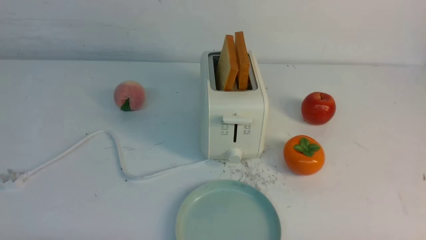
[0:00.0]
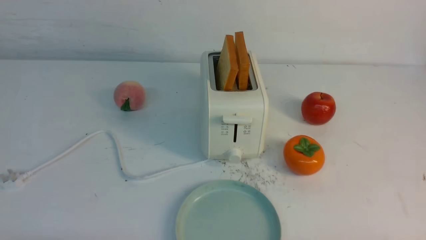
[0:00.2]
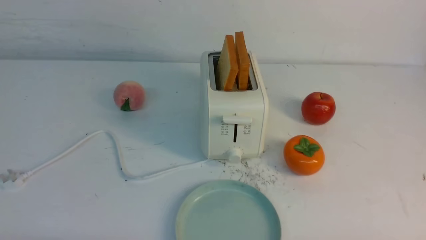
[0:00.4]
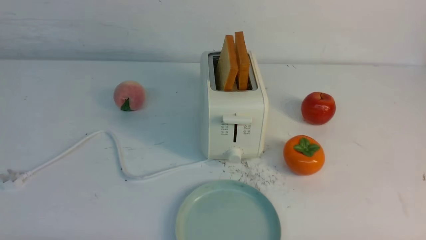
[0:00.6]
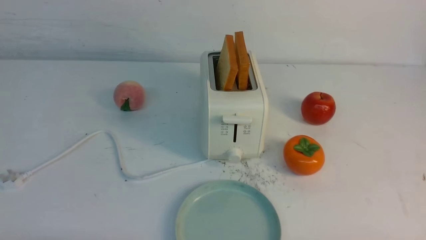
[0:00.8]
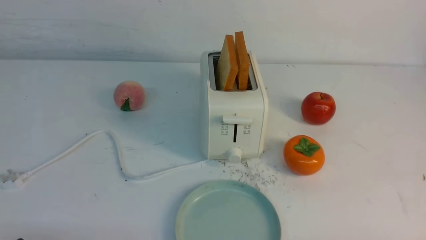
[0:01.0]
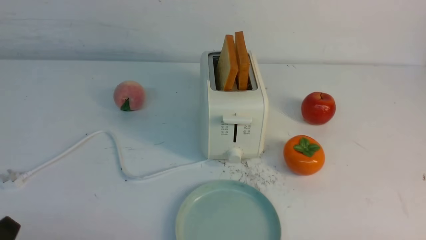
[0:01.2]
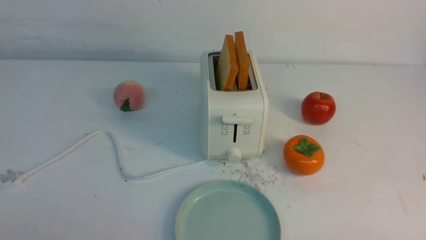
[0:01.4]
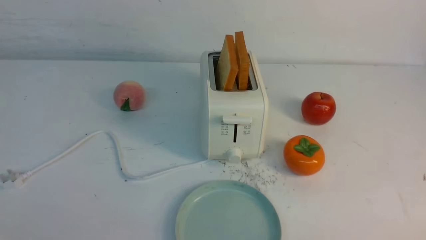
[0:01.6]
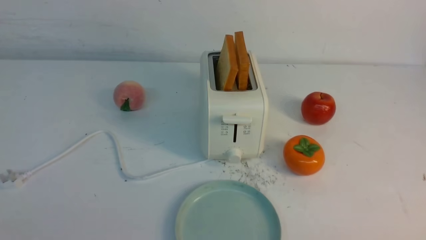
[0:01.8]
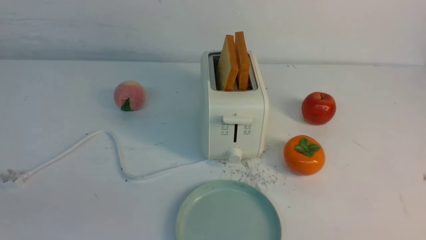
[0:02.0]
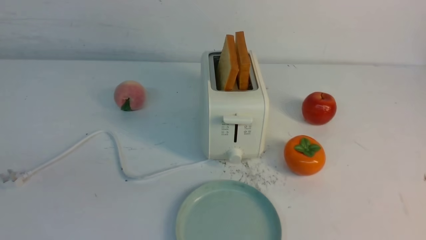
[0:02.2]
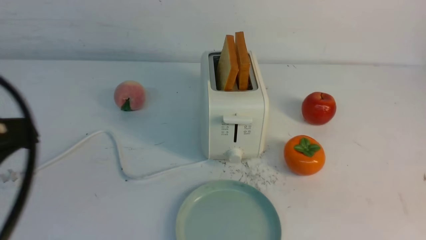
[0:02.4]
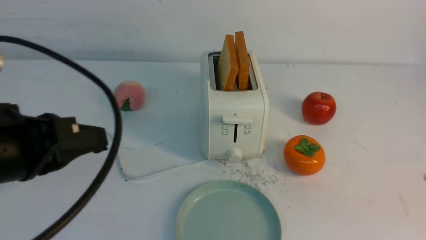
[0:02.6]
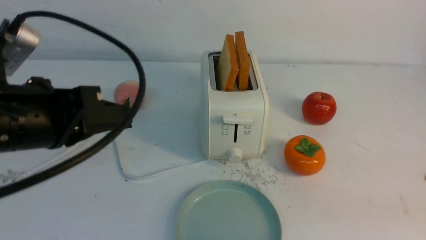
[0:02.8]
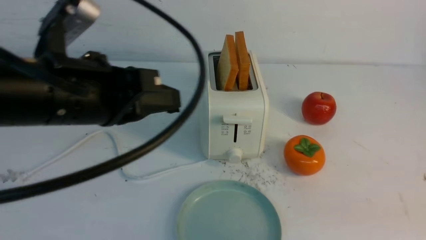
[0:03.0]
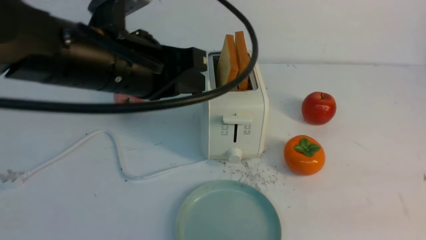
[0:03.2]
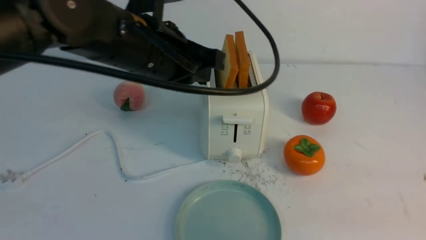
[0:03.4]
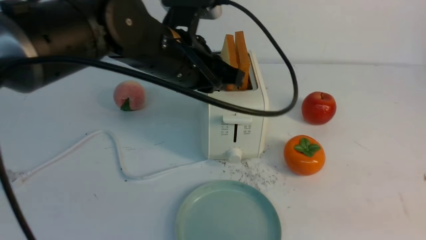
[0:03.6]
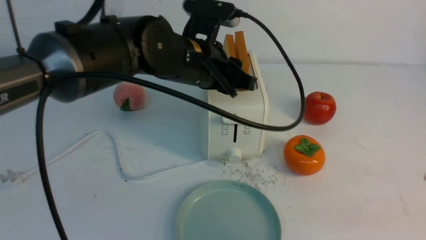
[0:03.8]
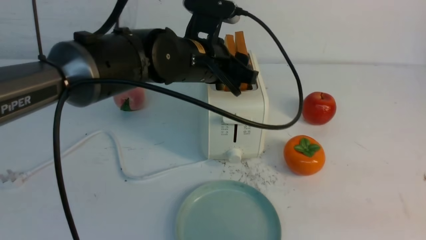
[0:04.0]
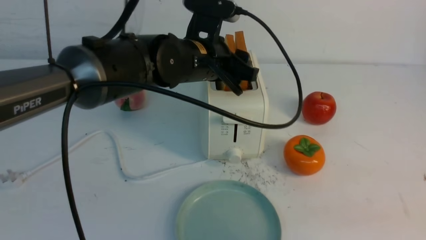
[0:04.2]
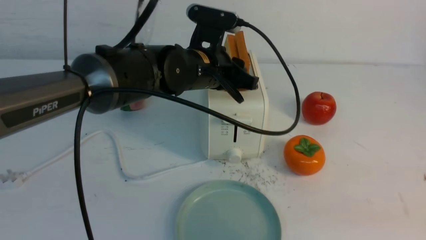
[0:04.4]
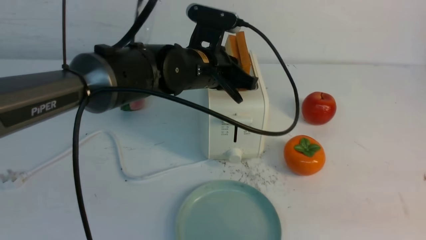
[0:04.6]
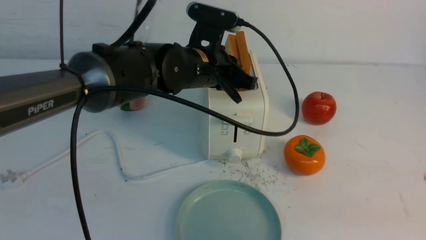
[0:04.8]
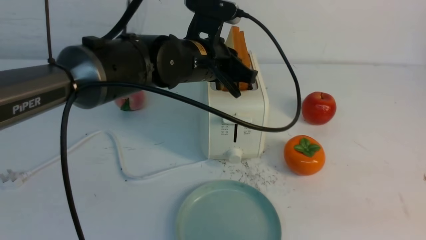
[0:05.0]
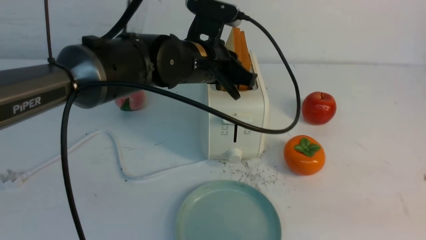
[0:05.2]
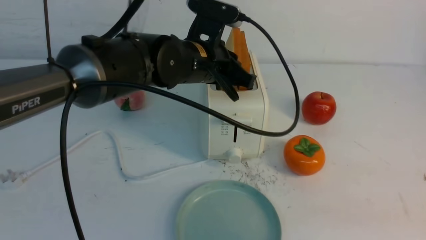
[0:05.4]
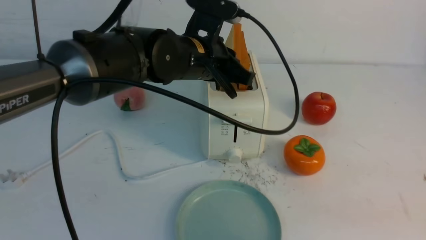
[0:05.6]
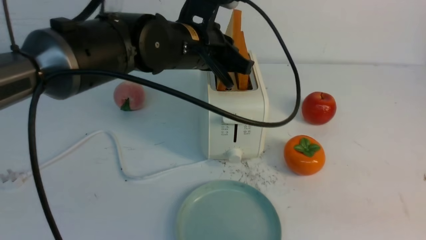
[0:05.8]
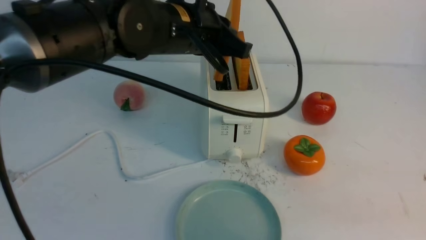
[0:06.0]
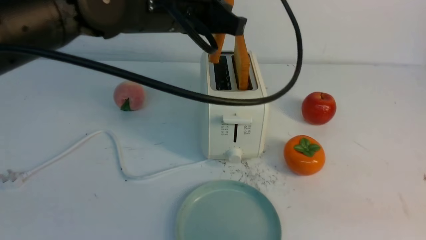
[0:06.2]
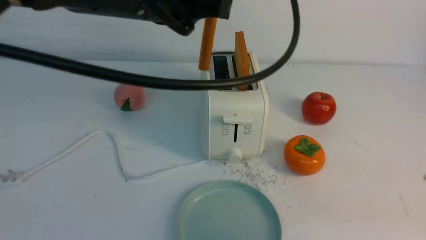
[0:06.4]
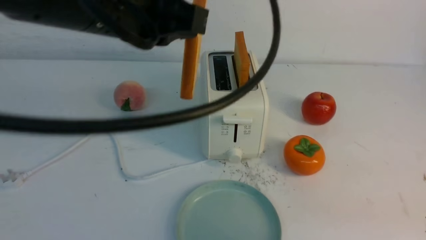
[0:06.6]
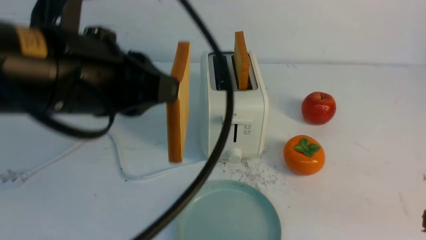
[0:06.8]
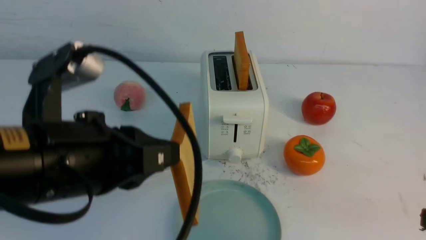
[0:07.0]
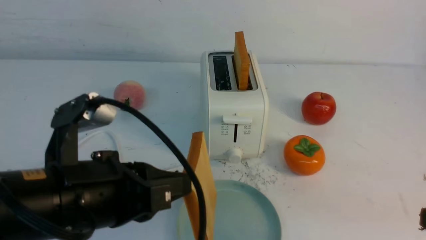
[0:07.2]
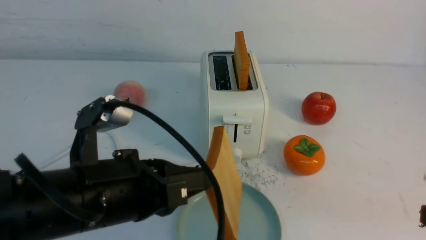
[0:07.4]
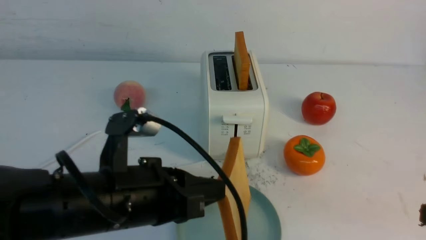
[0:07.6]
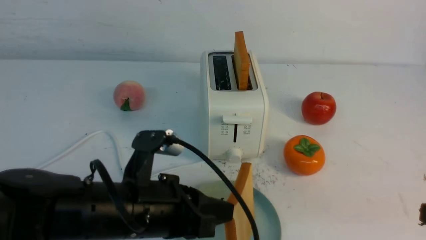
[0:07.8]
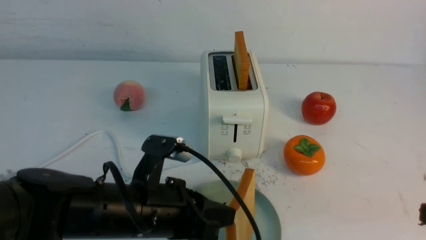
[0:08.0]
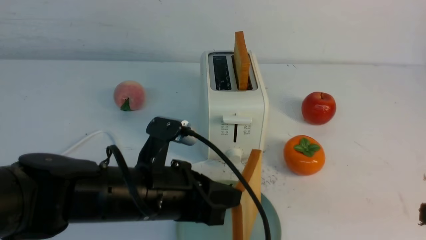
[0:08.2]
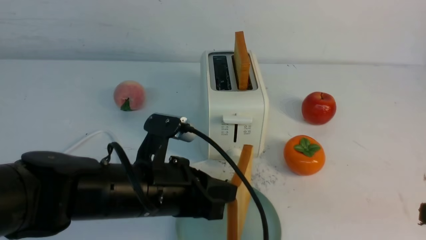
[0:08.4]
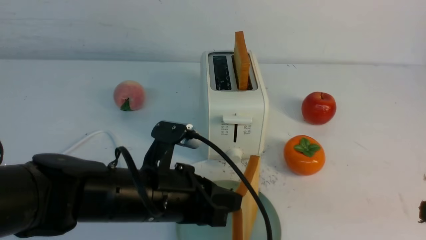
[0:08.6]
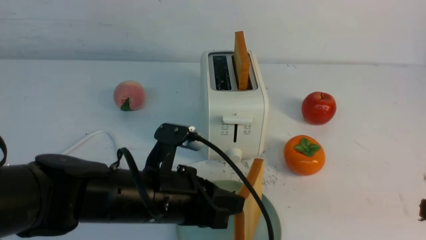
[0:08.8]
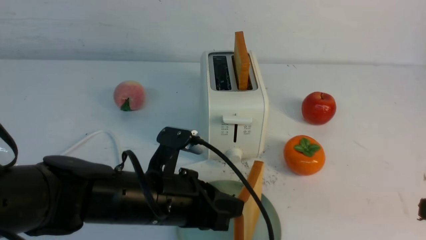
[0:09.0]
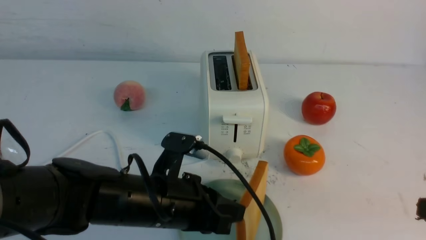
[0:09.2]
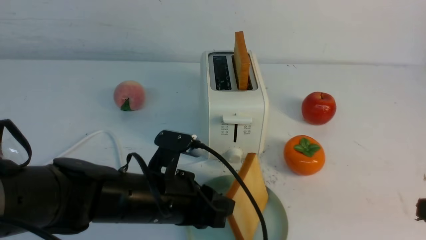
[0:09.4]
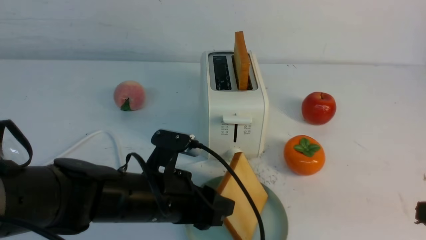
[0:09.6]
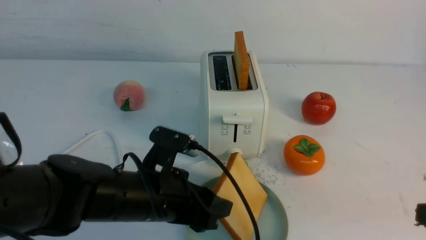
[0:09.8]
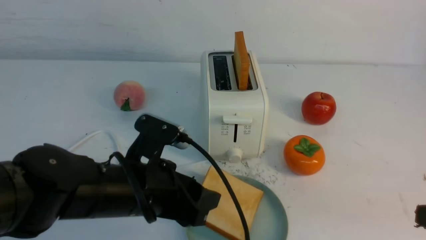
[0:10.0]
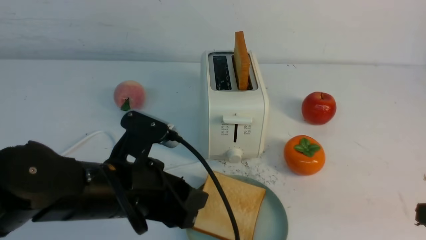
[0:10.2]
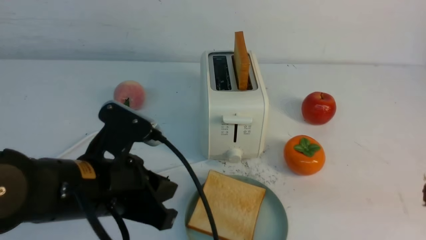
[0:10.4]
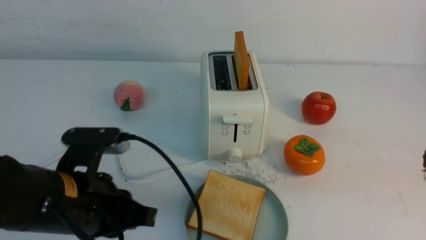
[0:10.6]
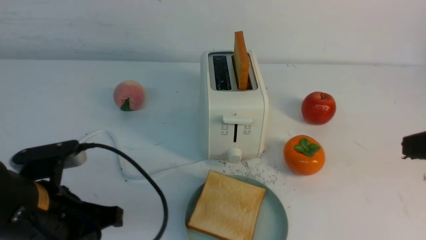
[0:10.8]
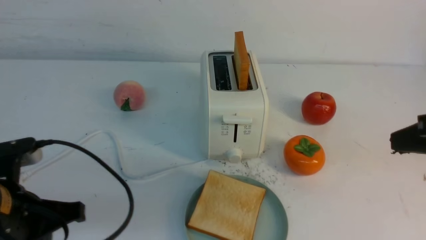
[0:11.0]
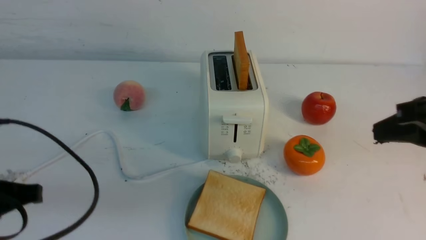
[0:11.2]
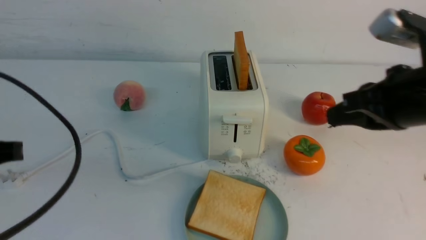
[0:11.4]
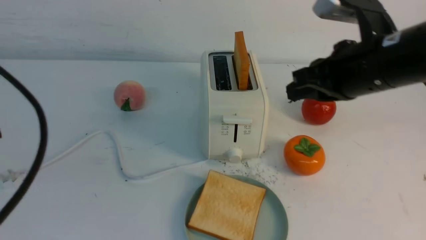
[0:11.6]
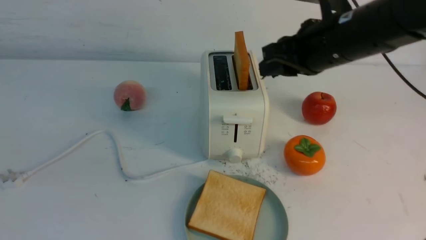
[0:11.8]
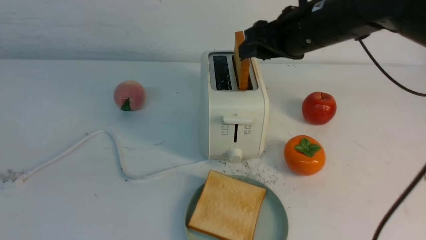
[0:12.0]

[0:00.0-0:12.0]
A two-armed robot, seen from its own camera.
Task of the whole recording: take toasted bread from bread machine on white table place on plate.
Step, 0:00.0 to 0:05.8: use the left arm to take out a slice of bread.
Step, 0:06.0 to 0:10.4: use the left arm to put a slice of bread into the empty plate.
0:01.6 to 0:03.0: The left gripper is displaced forward, upward and to the right by approximately 25 cm, and closes up. The right gripper is displaced upward by approximately 10 cm, and closes.
0:03.0 to 0:04.4: The left gripper moves forward and to the right, roughly 20 cm, and opens.
0:04.4 to 0:06.0: The left gripper is displaced upward by roughly 5 cm, and closes.
0:06.0 to 0:07.6: The left gripper shifts about 20 cm backward and downward.
0:07.6 to 0:09.0: The left gripper is displaced downward by roughly 5 cm.
0:09.0 to 0:10.4: The left gripper moves approximately 5 cm, and opens up.
0:10.4 to 0:12.0: The right gripper is displaced forward and to the left by approximately 30 cm, and opens up. Meanwhile the left gripper travels to the left, upward and backward by approximately 20 cm, and closes up.

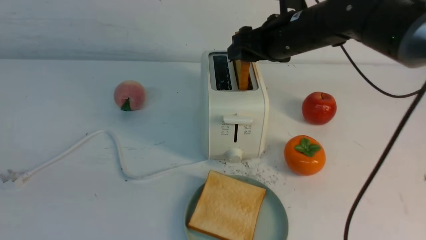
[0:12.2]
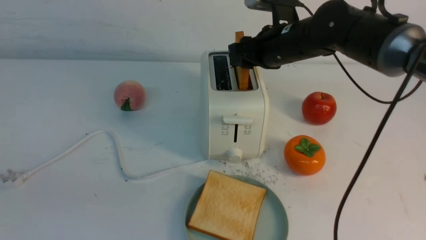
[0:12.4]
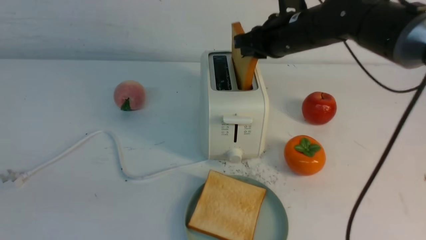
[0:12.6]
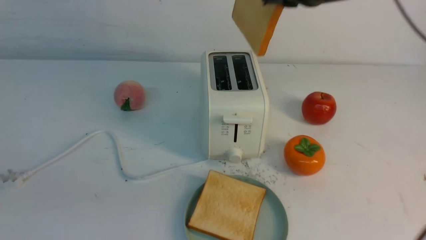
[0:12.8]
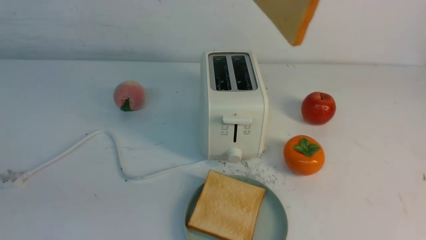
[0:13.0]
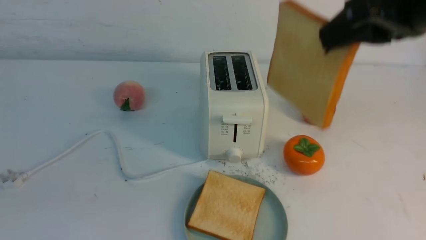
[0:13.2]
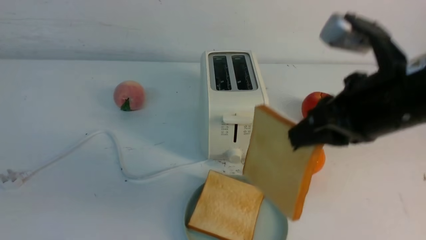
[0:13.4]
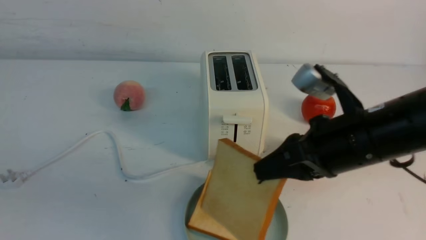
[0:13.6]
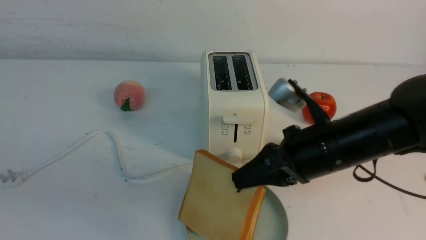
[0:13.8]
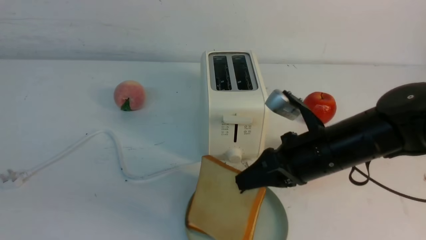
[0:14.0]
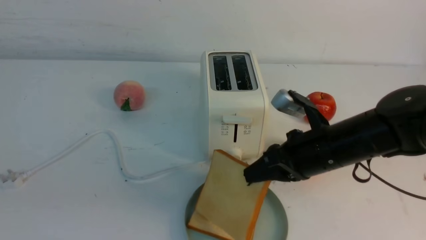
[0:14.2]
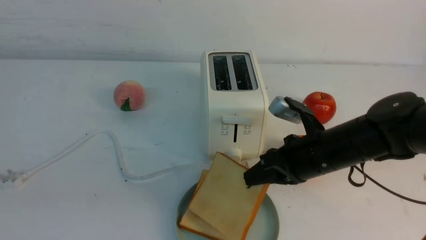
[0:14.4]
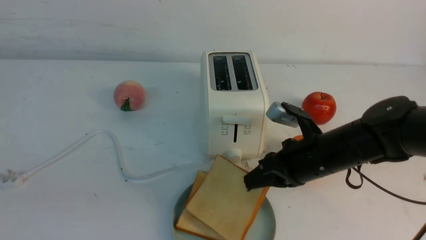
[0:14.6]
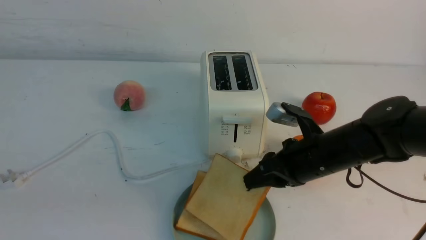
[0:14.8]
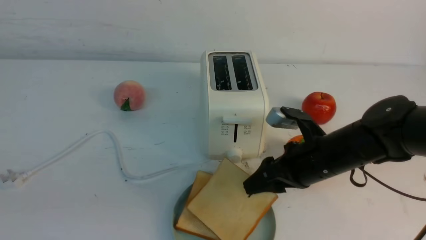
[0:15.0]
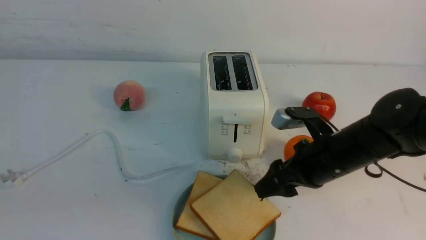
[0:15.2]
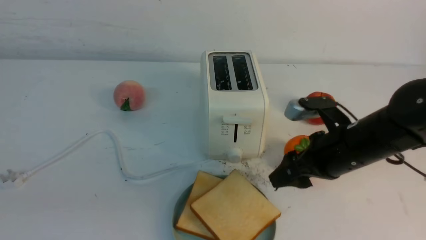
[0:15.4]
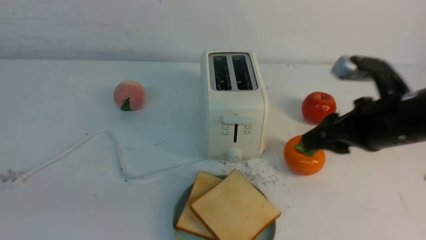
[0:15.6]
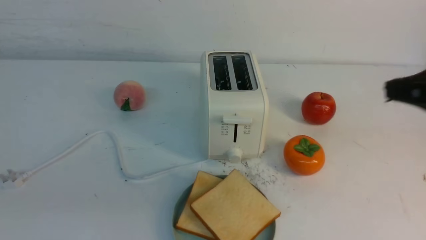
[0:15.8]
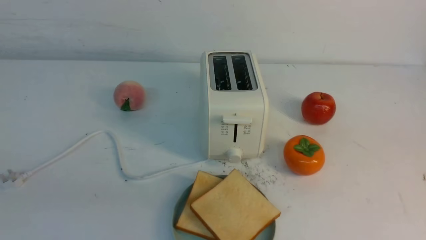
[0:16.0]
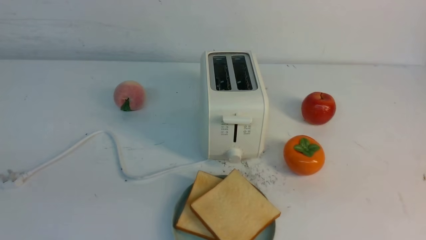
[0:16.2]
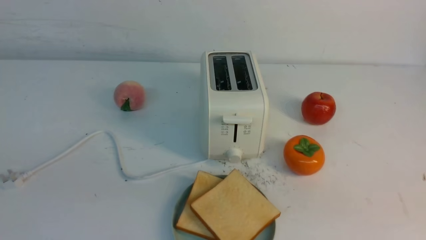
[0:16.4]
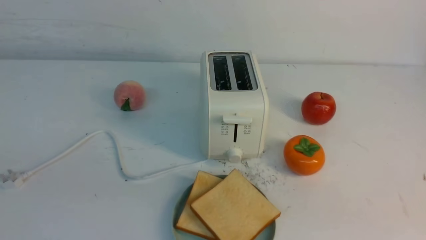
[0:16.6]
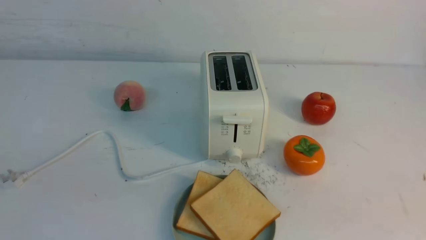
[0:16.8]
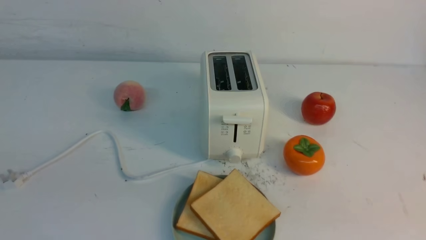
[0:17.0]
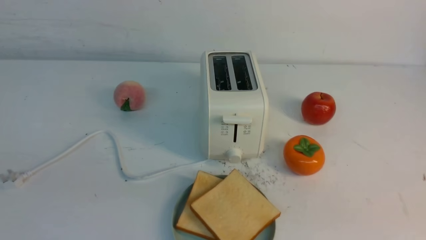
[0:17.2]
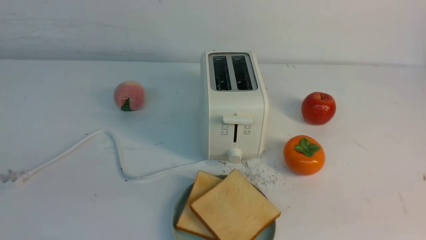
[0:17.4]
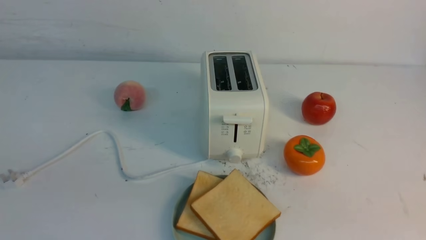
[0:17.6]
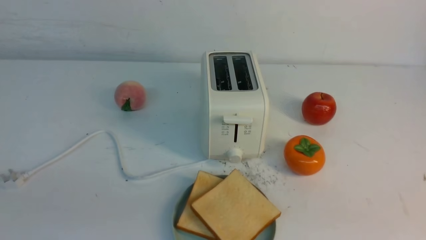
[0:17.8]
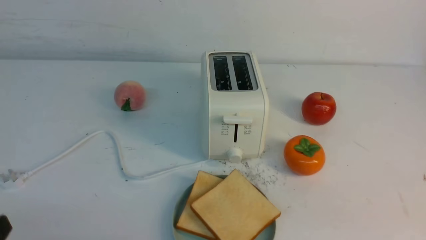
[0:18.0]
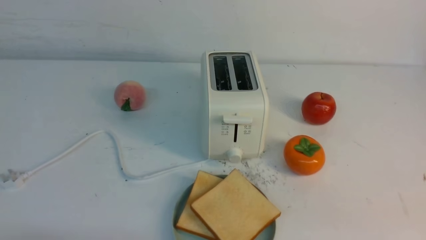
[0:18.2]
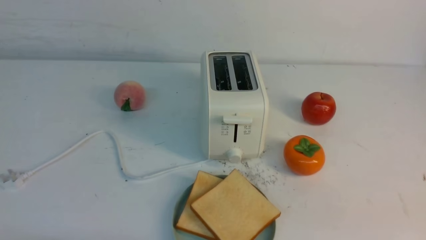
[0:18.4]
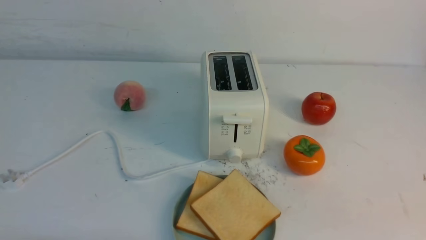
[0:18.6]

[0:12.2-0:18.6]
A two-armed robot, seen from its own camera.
Task of the whole recording: take toasted bread from bread machine on white table place on plate.
Step, 0:12.8 to 0:15.2: use the right arm to put a slice of bread into the plate.
0:12.2 to 0:13.8: The right gripper shifts some 15 cm backward, and closes.
0:13.8 to 0:15.4: The right gripper shifts by roughly 5 cm, and opens up.
0:15.4 to 0:17.0: The right gripper moves backward and to the right, roughly 30 cm, and closes its fingers.
